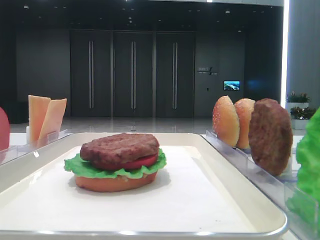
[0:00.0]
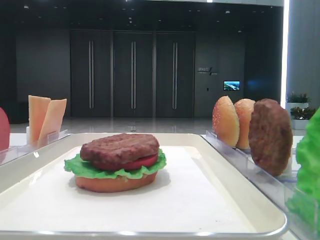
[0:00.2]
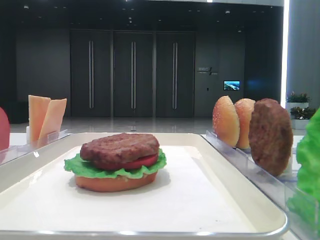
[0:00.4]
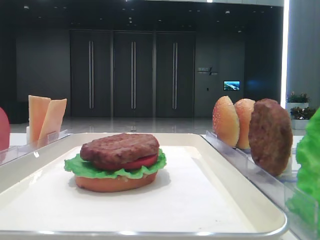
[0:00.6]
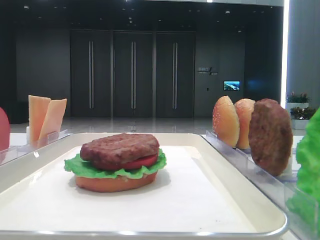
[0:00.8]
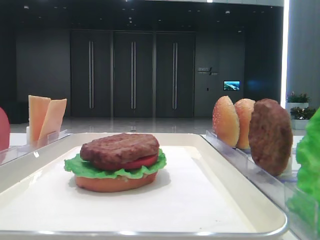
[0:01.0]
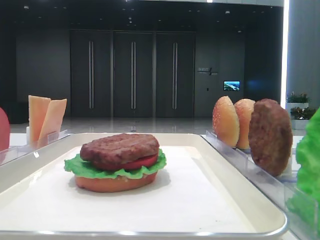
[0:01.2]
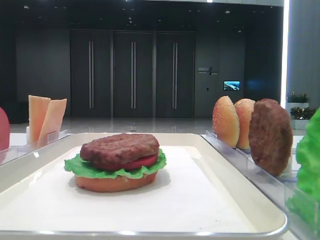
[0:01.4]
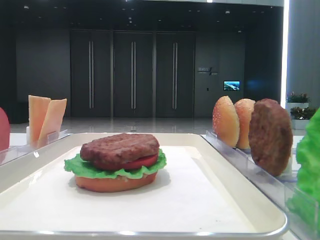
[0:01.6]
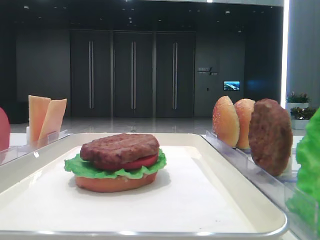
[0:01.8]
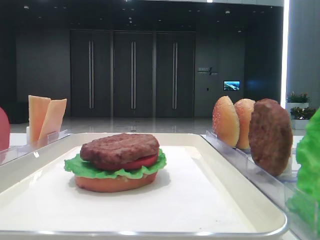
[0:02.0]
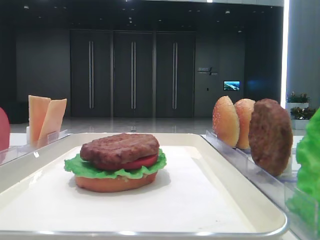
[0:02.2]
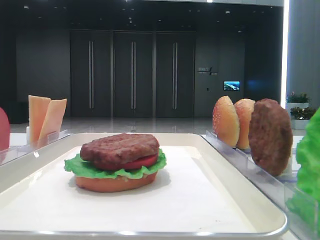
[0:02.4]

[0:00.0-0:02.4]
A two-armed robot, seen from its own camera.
0:01.2 to 0:02.4: Both grippers stay about where they are.

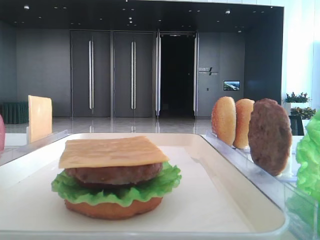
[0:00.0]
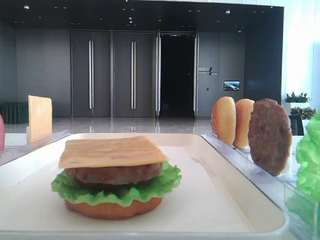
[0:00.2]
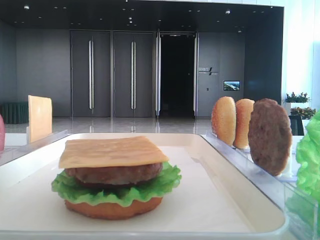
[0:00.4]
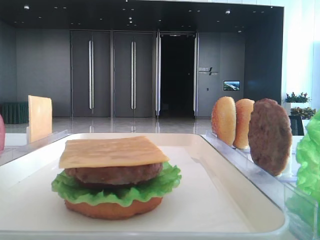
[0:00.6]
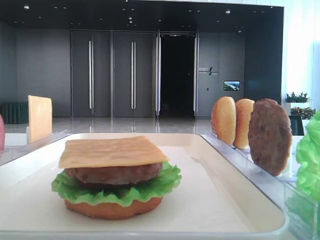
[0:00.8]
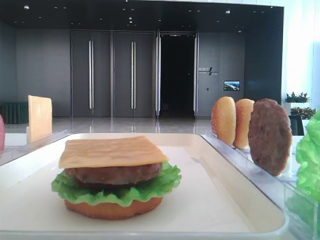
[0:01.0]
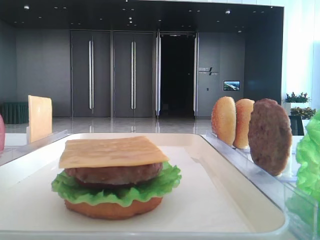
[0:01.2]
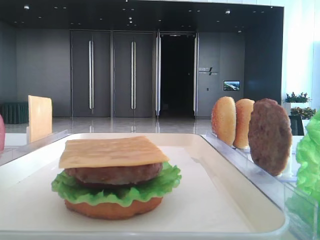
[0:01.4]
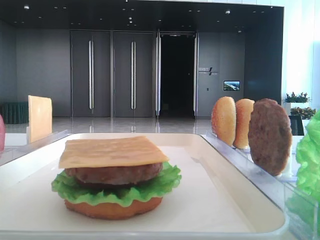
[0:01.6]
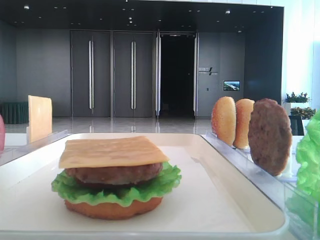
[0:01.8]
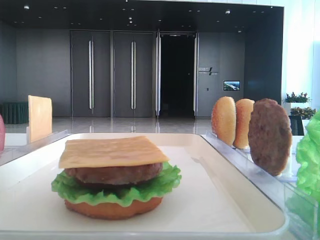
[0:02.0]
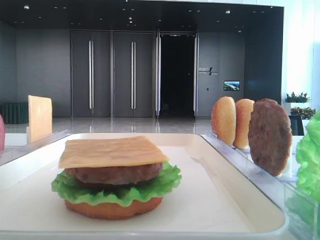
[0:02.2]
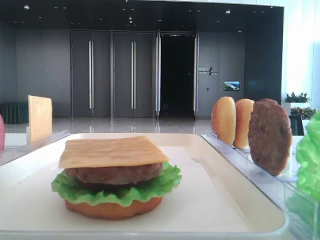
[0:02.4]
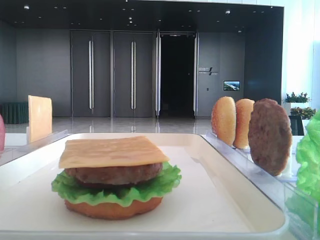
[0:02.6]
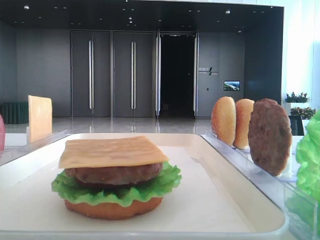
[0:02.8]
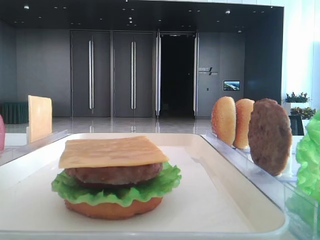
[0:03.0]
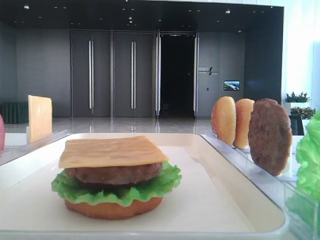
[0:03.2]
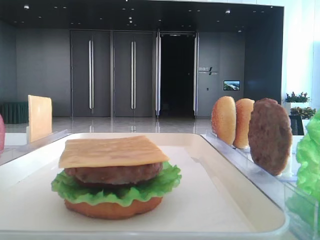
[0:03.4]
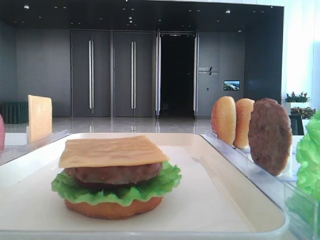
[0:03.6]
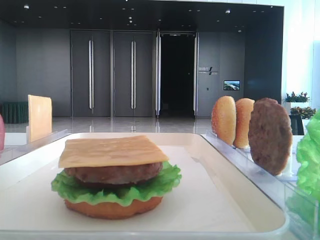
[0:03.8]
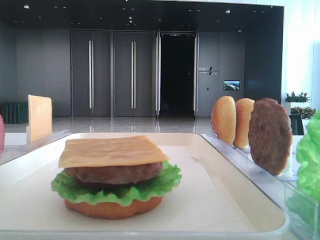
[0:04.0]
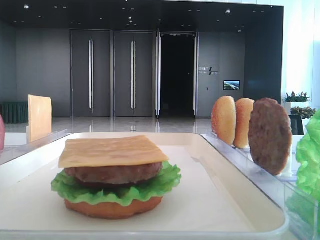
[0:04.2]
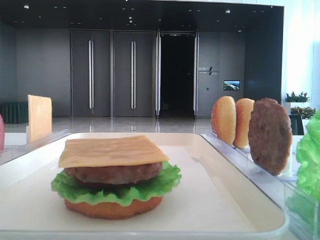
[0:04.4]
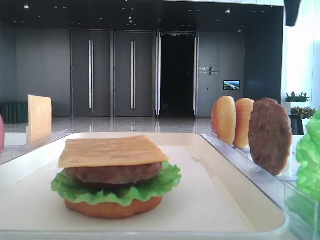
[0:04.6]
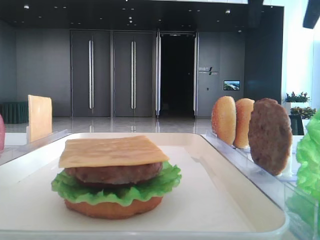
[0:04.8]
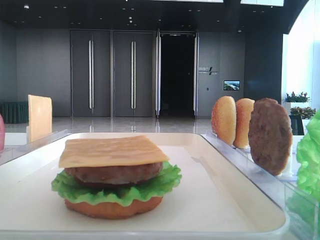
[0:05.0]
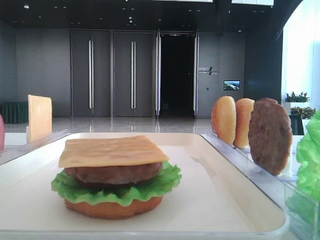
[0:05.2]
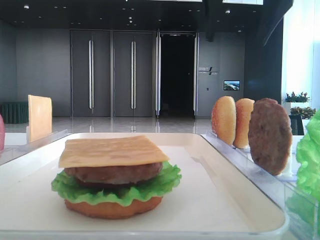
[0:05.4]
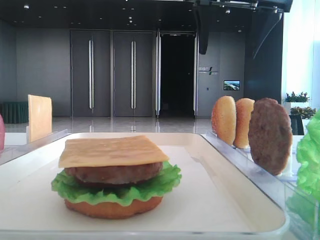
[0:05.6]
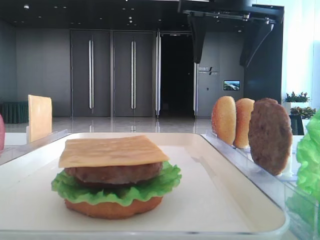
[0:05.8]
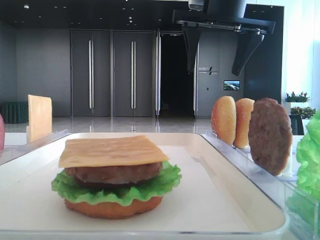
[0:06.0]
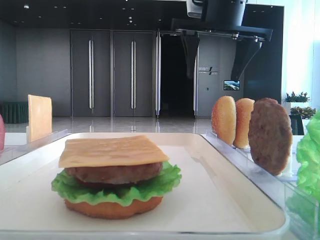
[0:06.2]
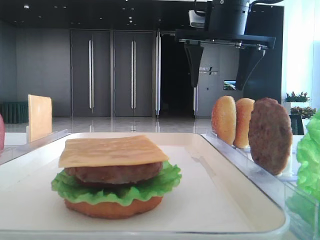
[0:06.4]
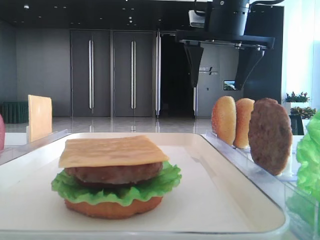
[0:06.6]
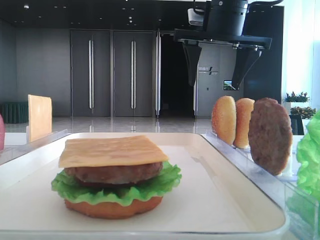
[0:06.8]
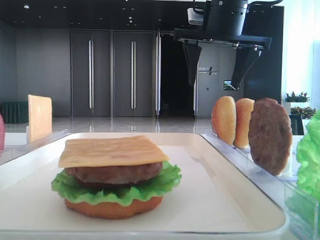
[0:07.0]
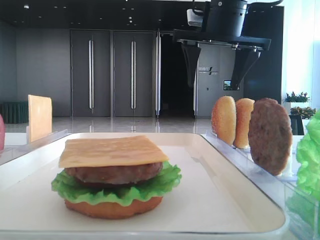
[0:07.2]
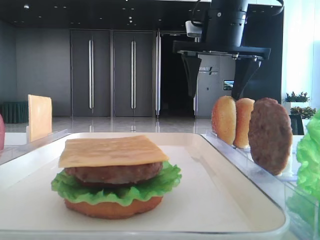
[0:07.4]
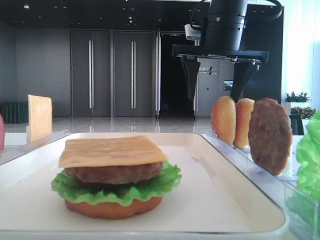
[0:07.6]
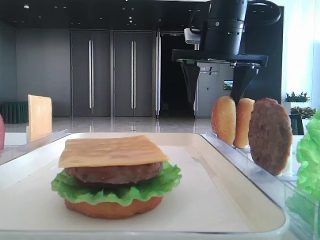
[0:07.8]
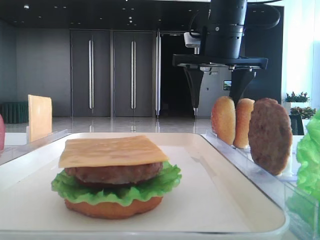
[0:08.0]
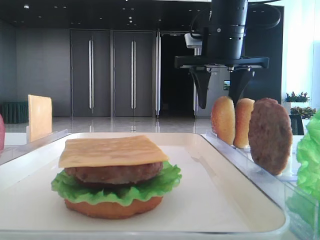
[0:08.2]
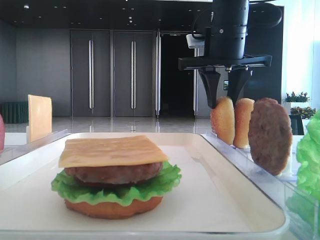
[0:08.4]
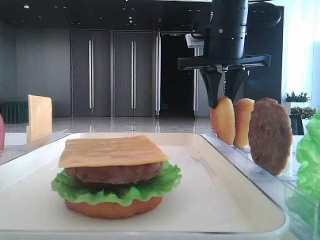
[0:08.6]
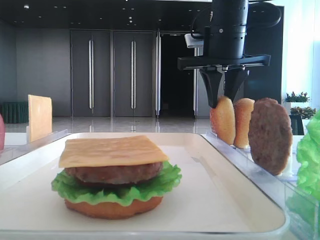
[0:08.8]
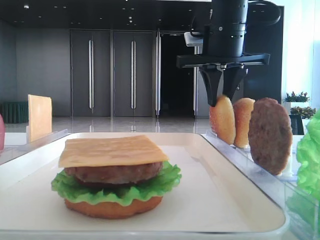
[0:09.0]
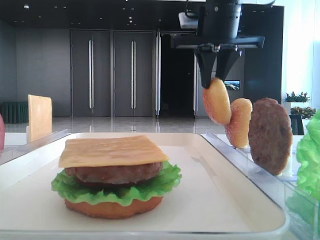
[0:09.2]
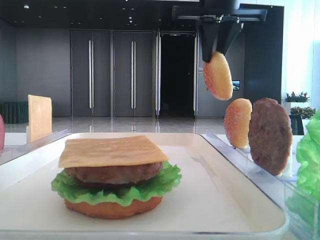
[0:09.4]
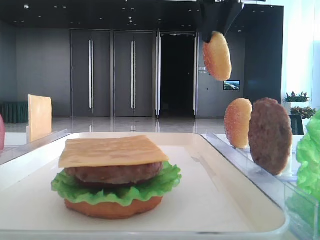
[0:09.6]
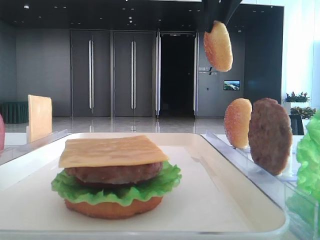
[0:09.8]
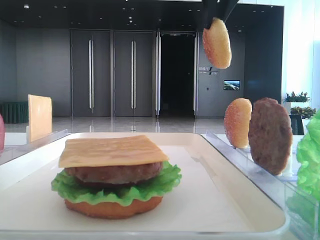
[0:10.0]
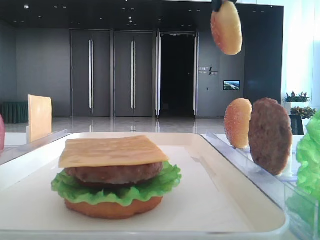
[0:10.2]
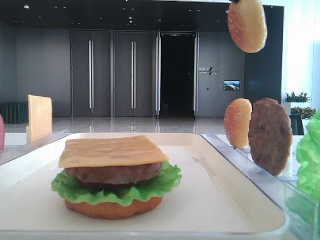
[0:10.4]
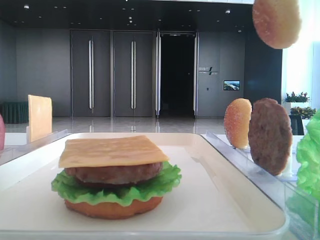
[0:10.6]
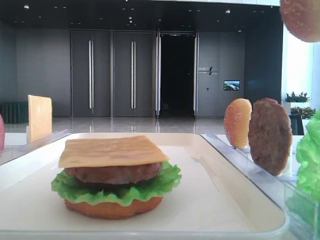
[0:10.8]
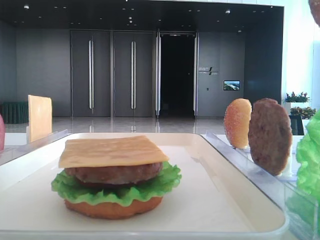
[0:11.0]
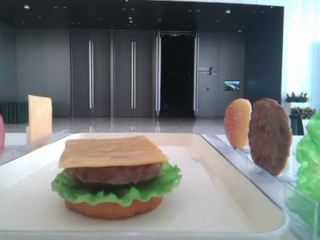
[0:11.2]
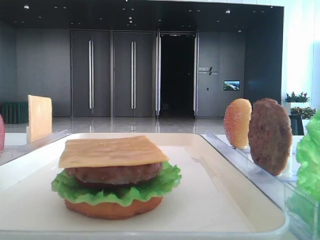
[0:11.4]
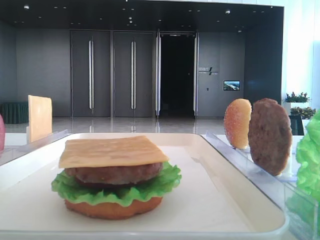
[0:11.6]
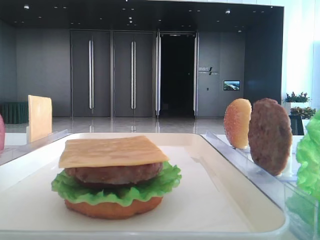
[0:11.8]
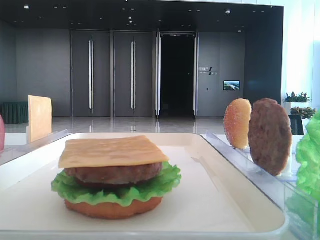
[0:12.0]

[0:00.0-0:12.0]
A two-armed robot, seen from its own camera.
Step, 0:00.0 to 0:08.4: Pick up the top bread slice with the right hand.
0:04.4 to 0:06.0: The right gripper heads to the left, covering roughly 20 cm.
0:06.0 to 0:07.6: The left gripper closes up, while the right gripper shifts by some 5 cm.
0:07.6 to 0:09.0: The right gripper closes up.
0:09.0 to 0:10.4: The right gripper moves upward and backward, approximately 20 cm.
0:10.4 to 0:12.0: The right gripper moves backward, some 20 cm.

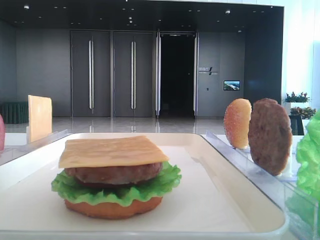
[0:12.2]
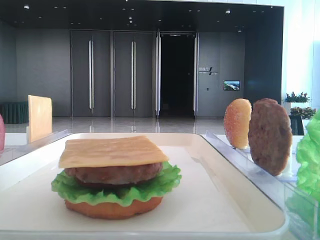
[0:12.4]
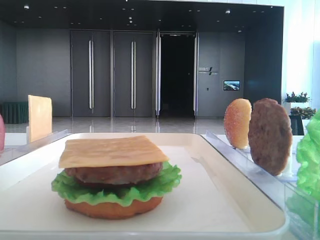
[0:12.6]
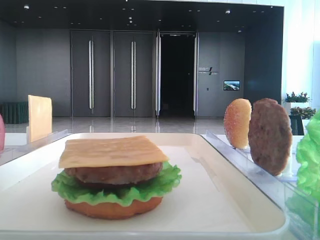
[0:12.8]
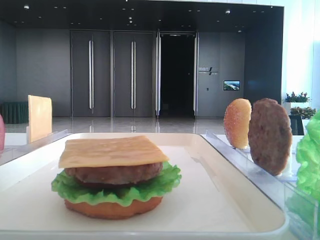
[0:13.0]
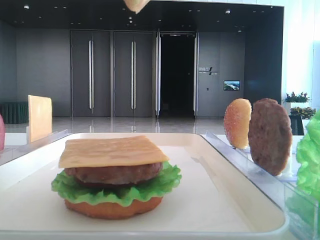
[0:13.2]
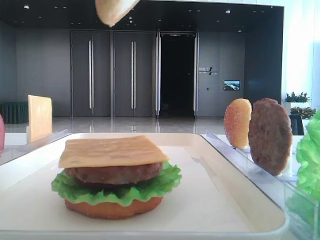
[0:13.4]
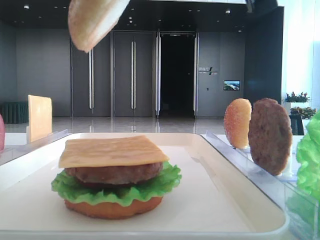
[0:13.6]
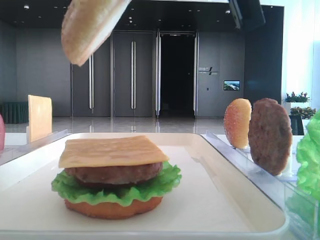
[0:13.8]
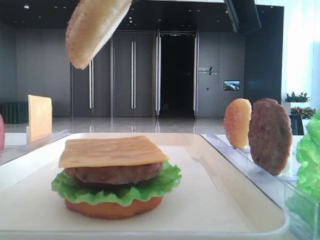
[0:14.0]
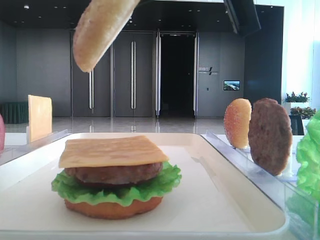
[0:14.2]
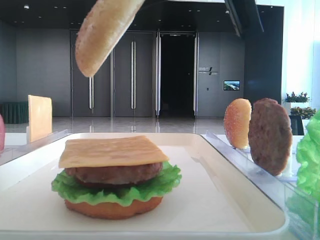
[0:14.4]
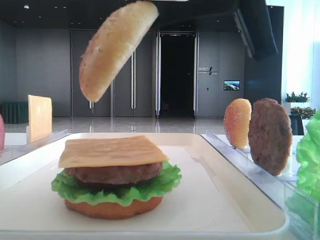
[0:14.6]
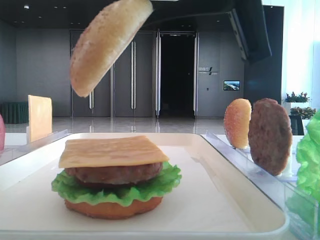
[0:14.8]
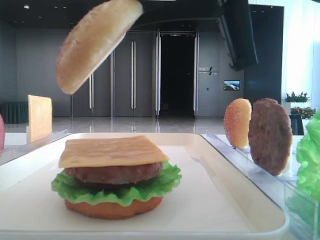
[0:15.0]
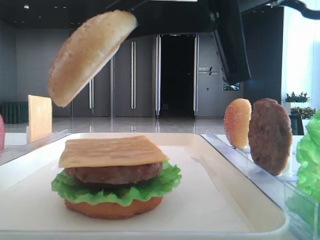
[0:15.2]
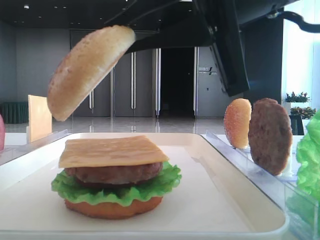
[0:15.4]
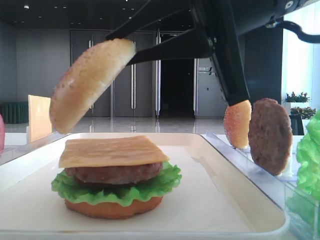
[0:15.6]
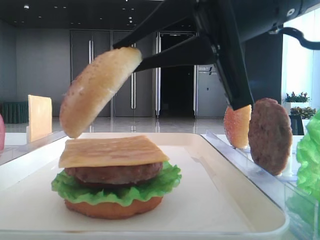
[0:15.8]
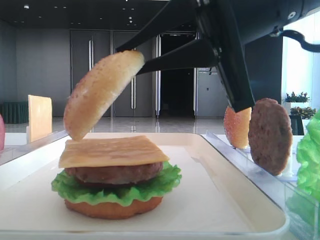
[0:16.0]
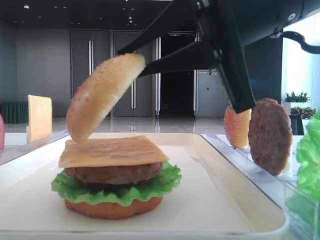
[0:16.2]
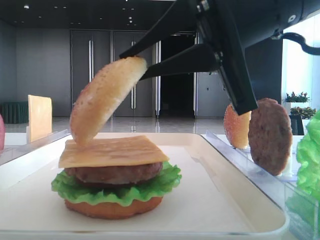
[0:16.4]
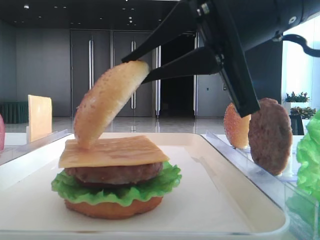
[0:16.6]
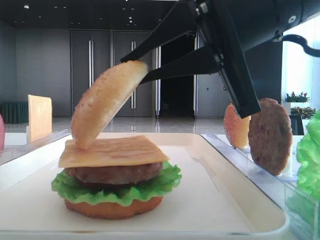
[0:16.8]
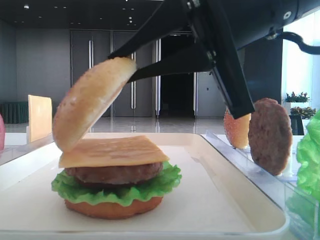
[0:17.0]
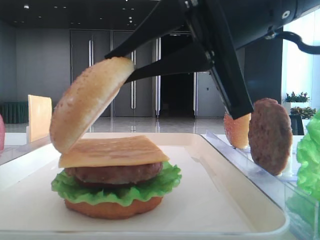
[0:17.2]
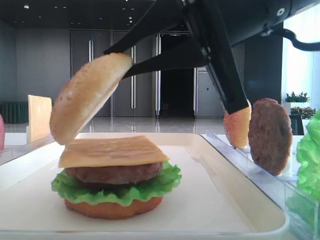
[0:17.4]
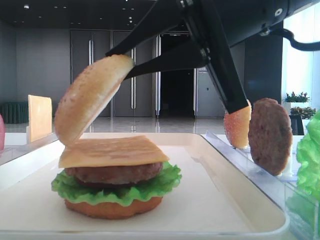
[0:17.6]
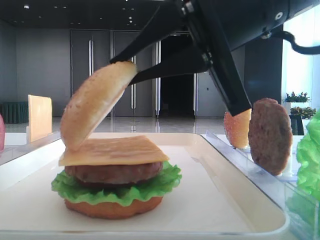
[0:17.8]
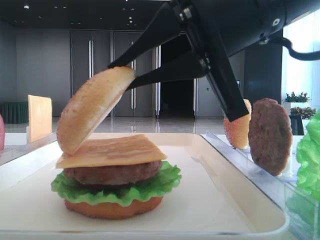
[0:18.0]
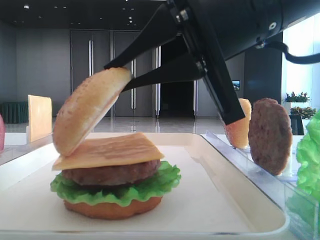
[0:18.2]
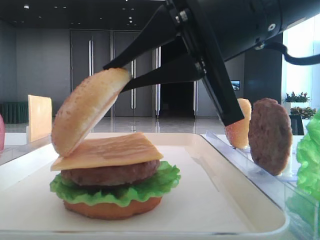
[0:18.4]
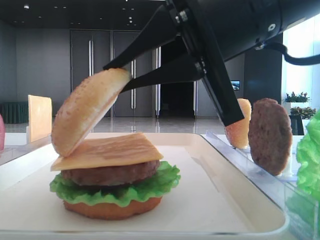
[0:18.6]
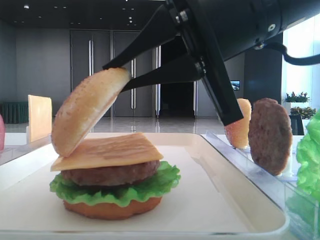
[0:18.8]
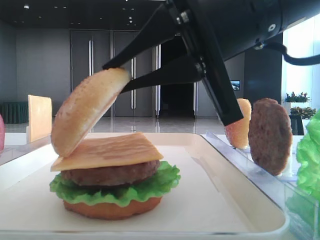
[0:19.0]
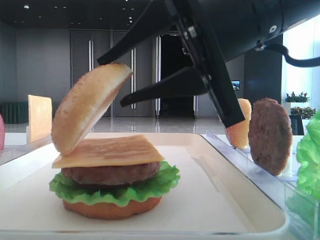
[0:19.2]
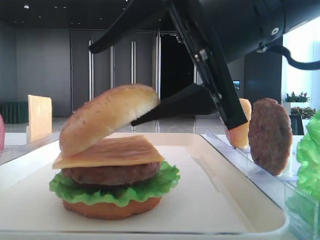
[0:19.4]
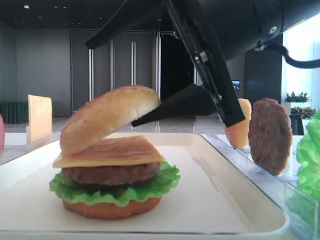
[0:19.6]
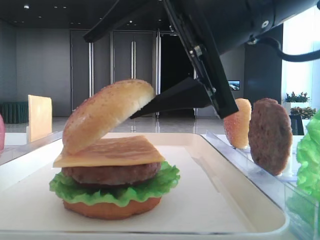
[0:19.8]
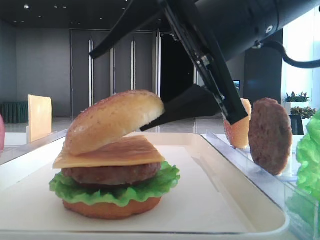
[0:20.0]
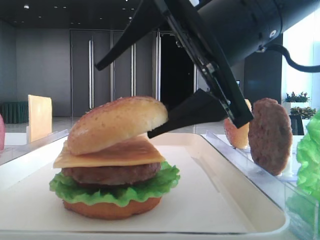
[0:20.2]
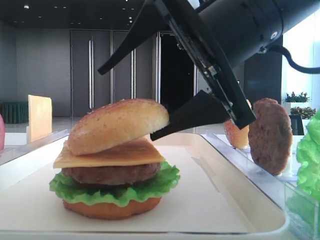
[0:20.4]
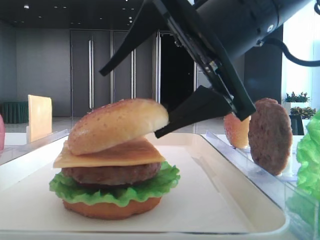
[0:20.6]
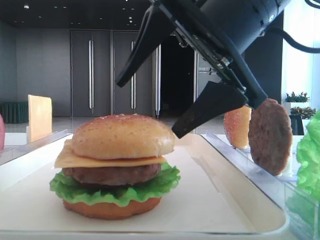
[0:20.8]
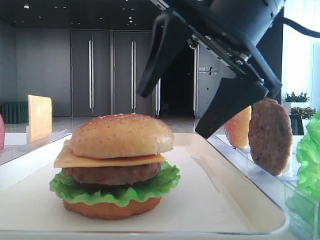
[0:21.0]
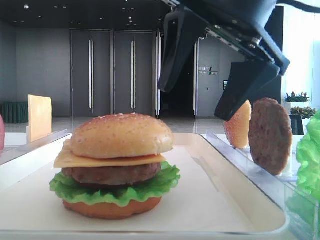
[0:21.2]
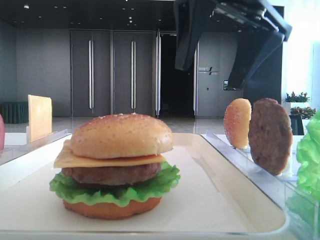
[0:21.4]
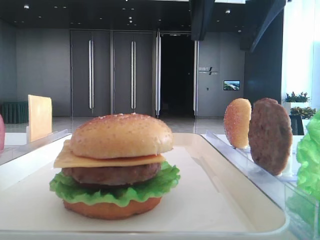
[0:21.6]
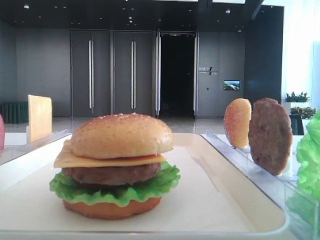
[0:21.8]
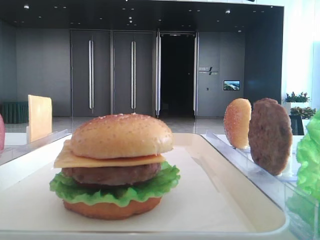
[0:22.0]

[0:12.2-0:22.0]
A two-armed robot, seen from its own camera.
Step, 0:12.2 to 0:20.8: Place the top bread slice on the cheese with the right hand.
0:12.2 to 0:13.6: The right gripper shifts roughly 15 cm to the left, downward and forward.
0:13.6 to 0:15.0: The grippers make only small movements.
0:15.0 to 0:16.4: The grippers stay close to where they were, moving slightly.
0:16.4 to 0:17.8: The two grippers keep their place.
0:17.8 to 0:19.2: The right gripper opens its fingers.
0:19.2 to 0:20.6: The right gripper opens its fingers.
0:20.6 to 0:22.0: The right gripper travels upward and forward by some 20 cm.
